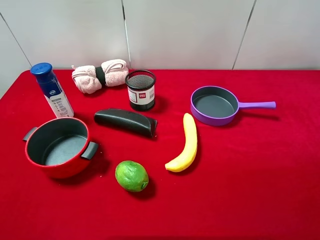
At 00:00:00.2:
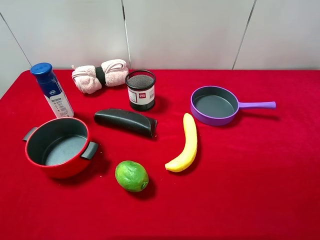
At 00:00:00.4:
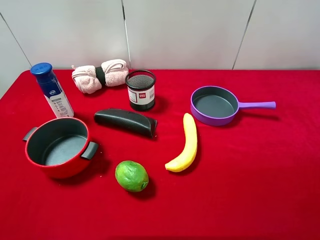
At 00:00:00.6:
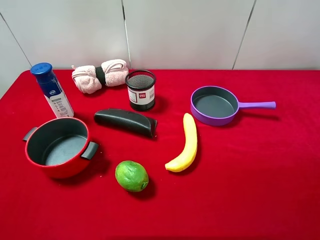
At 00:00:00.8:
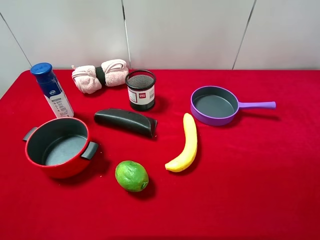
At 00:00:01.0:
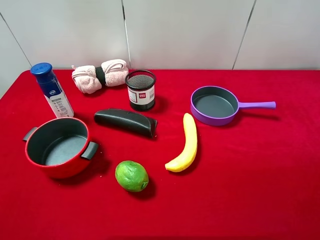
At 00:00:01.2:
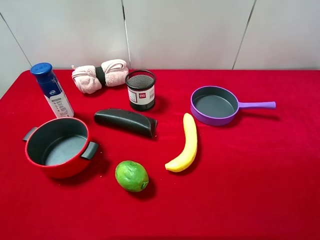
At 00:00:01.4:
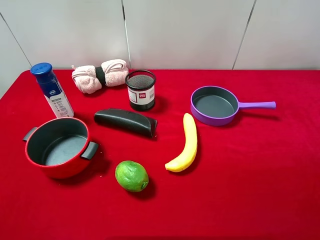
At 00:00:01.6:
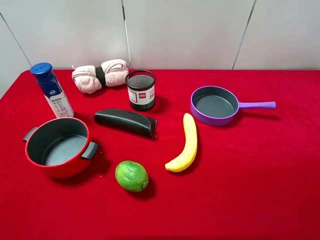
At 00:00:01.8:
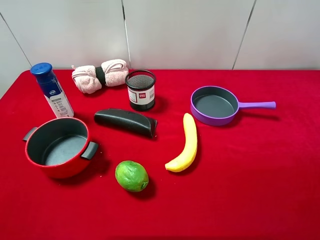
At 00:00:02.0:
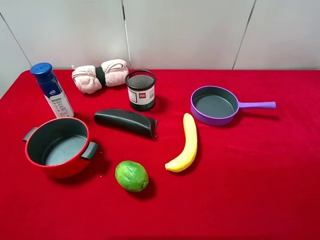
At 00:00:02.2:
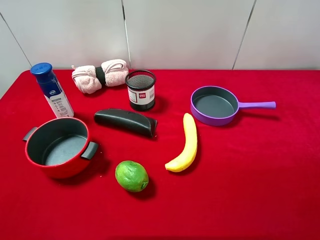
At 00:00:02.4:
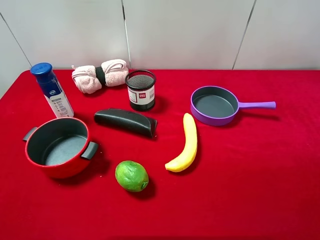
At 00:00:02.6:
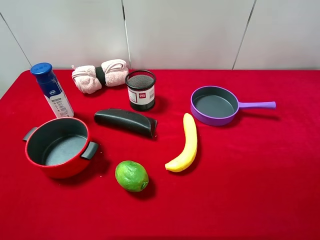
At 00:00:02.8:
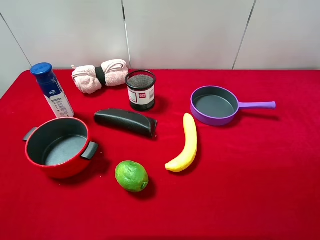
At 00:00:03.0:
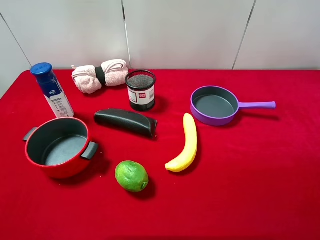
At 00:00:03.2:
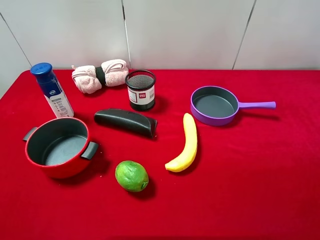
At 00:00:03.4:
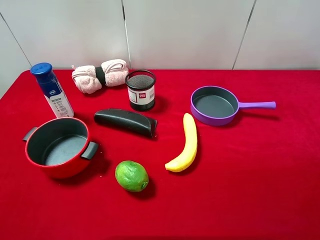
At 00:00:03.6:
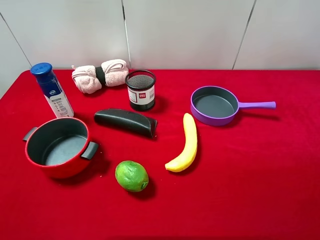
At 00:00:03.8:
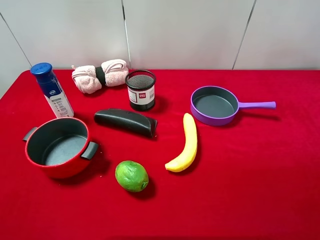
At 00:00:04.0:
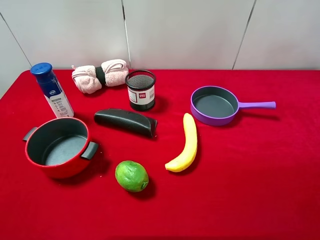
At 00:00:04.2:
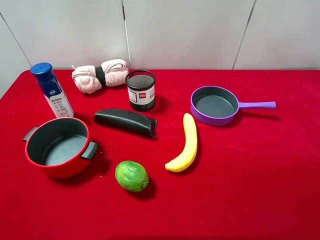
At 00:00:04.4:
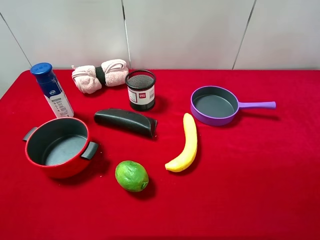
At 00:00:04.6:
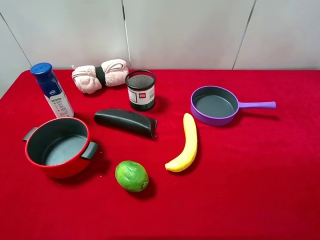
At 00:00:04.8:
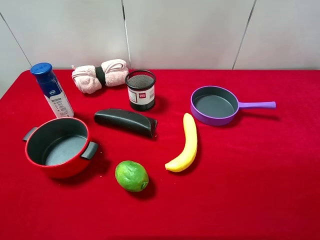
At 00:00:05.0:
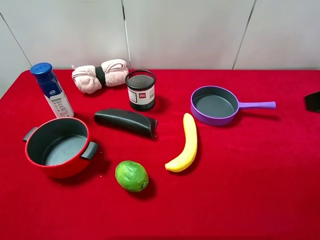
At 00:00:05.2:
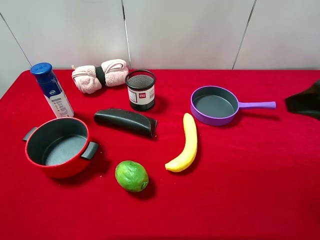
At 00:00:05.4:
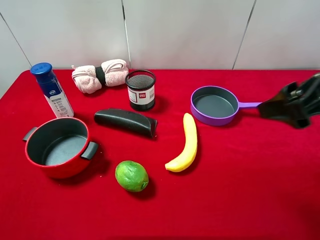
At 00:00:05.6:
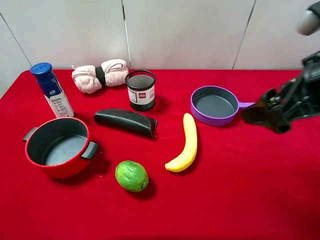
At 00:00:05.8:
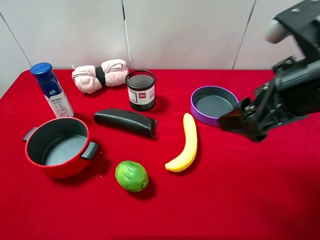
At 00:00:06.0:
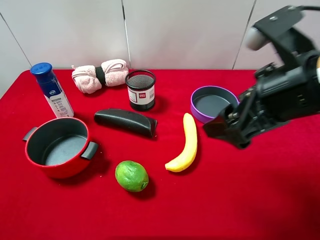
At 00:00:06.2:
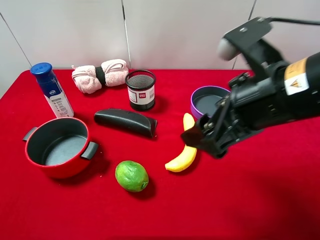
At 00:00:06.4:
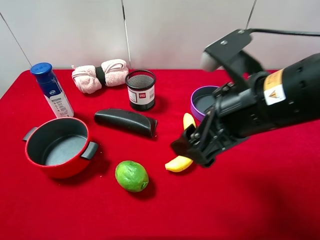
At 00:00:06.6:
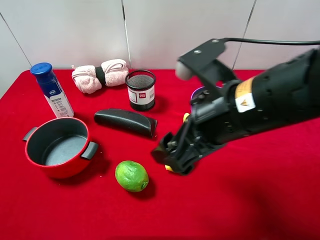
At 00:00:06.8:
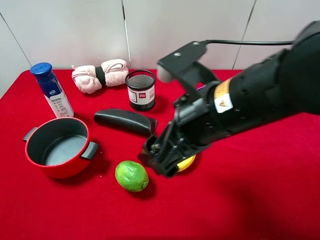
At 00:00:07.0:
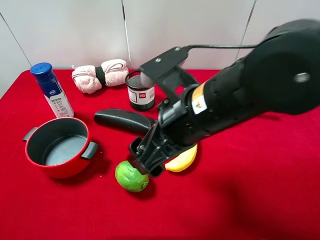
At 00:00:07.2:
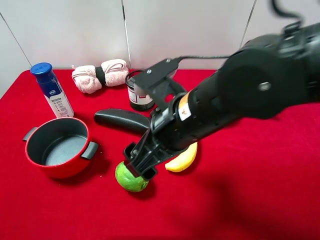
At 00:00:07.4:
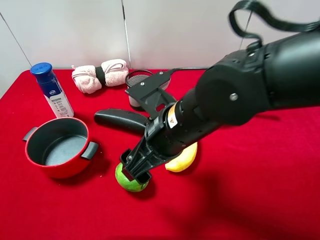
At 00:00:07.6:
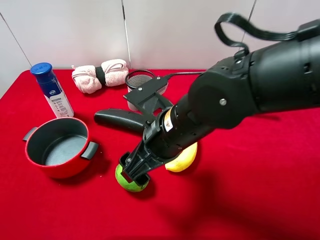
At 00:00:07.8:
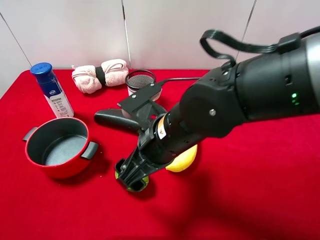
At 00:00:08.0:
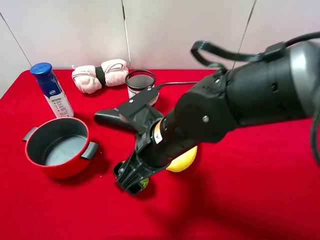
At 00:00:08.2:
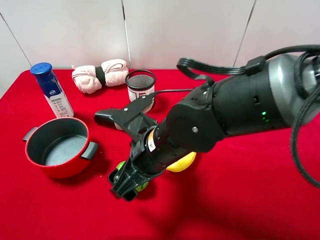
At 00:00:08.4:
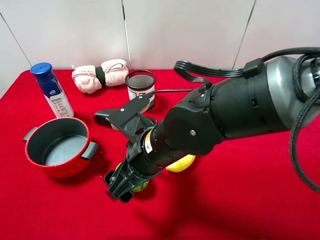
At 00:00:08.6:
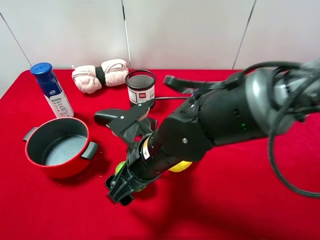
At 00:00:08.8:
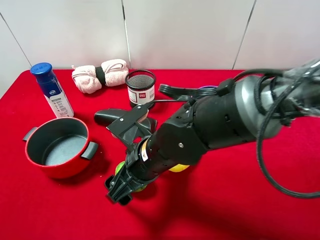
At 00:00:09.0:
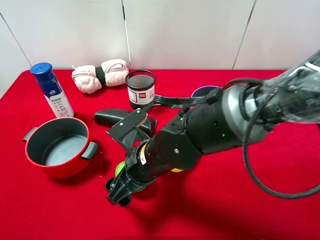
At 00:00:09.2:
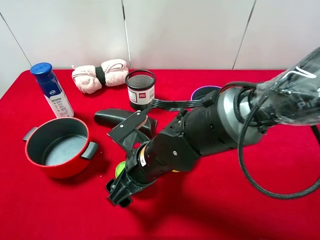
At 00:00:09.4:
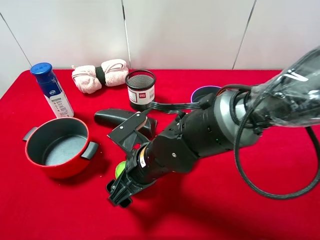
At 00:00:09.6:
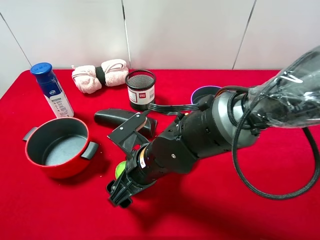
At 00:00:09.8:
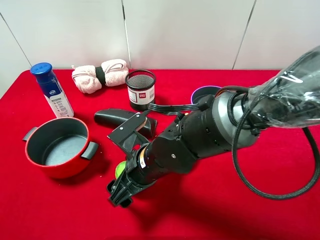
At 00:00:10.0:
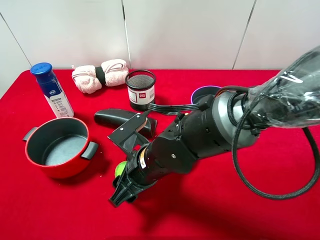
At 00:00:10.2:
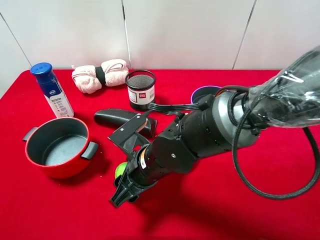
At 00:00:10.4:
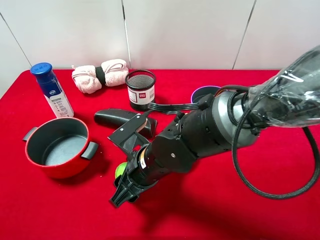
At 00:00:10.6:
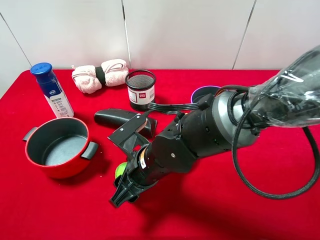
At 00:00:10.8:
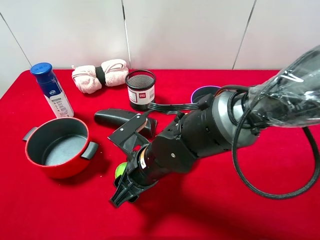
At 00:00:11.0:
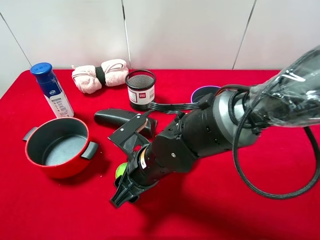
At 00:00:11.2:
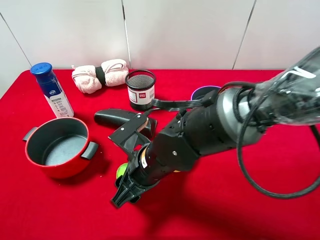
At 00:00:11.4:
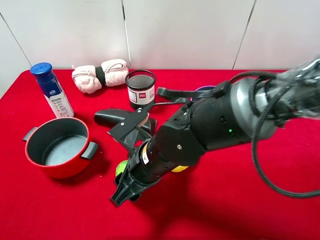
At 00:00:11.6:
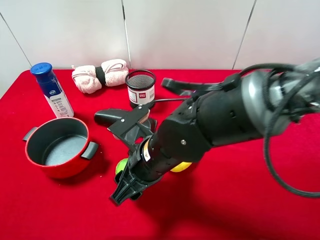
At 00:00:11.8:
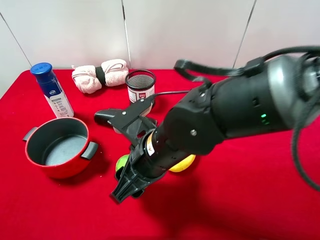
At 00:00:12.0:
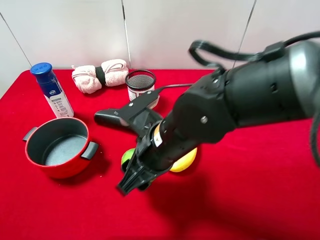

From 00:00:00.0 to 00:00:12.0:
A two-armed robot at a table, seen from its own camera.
Task of the whole recording: pick up an item with a gripper and place it in a random container on the desktop.
From 00:00:00.0 to 00:00:03.0: The two grippers keep their place.
From 00:00:04.4 to 00:00:06.0: The right gripper goes some 15 cm to the left, forward and downward.
From 00:00:06.0 to 00:00:07.6: The right gripper shifts approximately 15 cm to the left and downward.
From 00:00:07.6 to 00:00:09.0: The right gripper travels downward by about 5 cm.
From 00:00:09.0 to 00:00:10.4: The right gripper closes.
From 00:00:10.4 to 00:00:12.0: The right gripper shifts about 5 cm upward.

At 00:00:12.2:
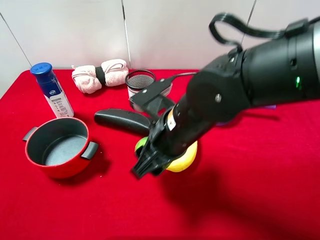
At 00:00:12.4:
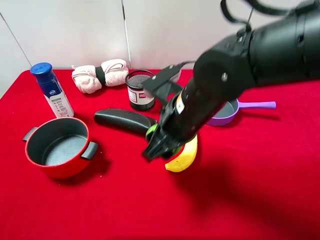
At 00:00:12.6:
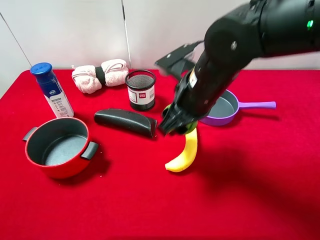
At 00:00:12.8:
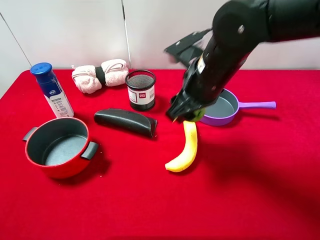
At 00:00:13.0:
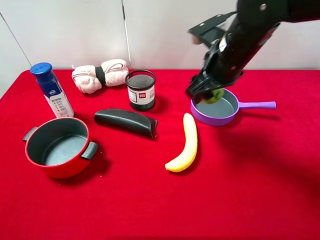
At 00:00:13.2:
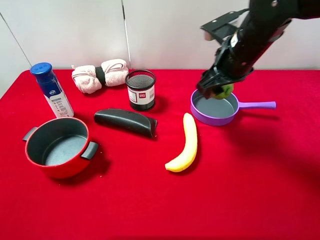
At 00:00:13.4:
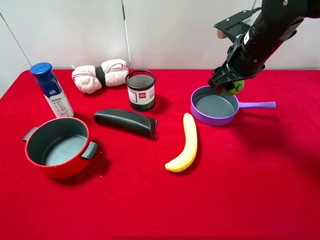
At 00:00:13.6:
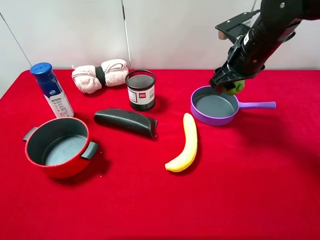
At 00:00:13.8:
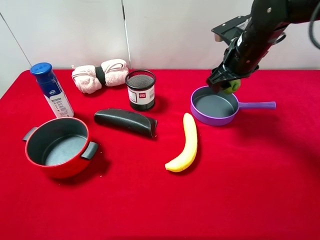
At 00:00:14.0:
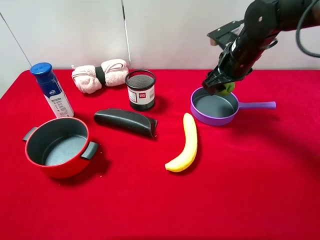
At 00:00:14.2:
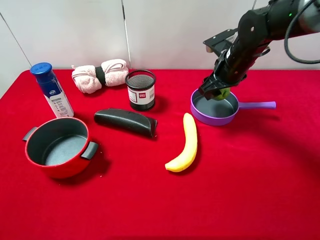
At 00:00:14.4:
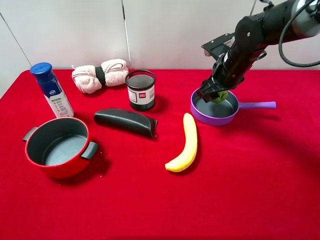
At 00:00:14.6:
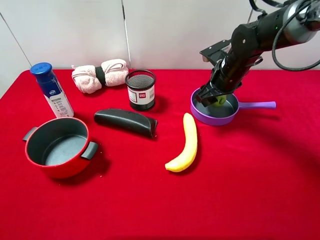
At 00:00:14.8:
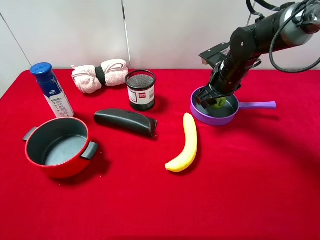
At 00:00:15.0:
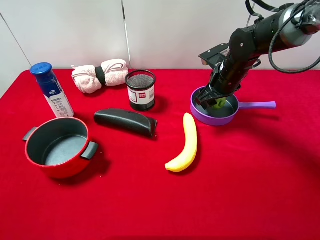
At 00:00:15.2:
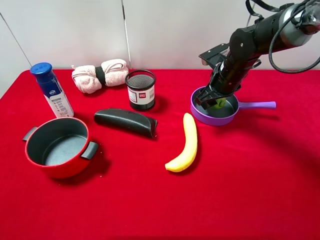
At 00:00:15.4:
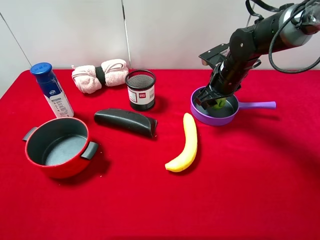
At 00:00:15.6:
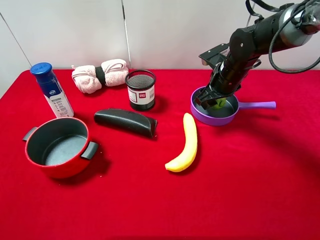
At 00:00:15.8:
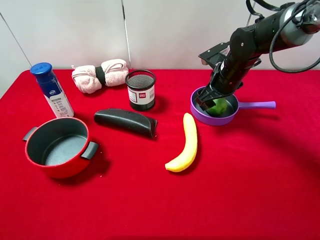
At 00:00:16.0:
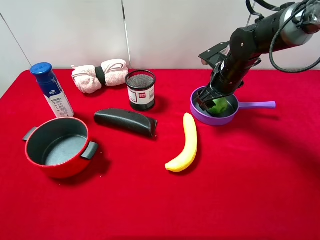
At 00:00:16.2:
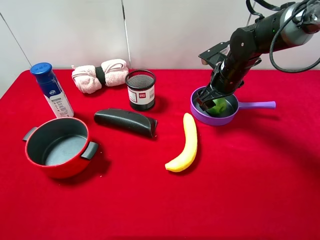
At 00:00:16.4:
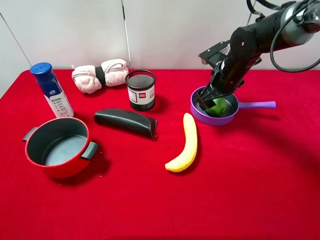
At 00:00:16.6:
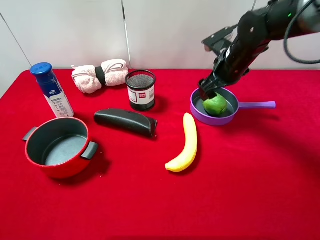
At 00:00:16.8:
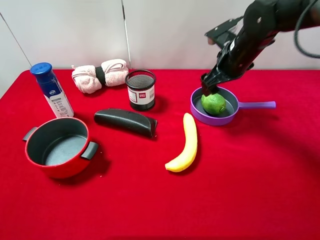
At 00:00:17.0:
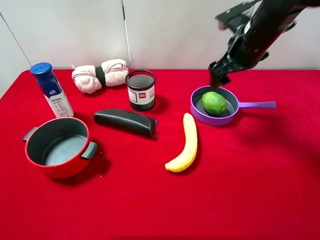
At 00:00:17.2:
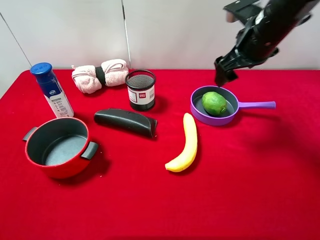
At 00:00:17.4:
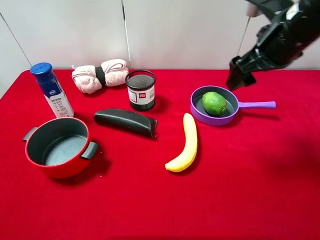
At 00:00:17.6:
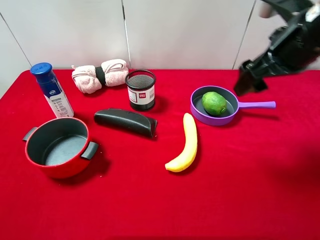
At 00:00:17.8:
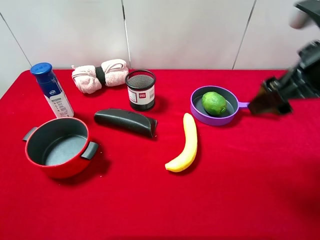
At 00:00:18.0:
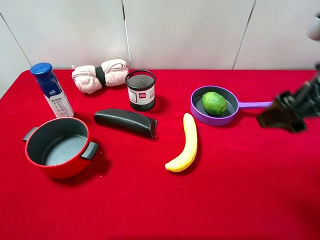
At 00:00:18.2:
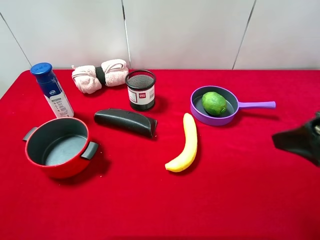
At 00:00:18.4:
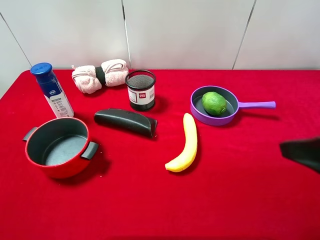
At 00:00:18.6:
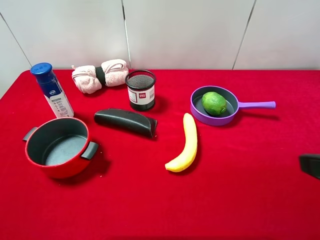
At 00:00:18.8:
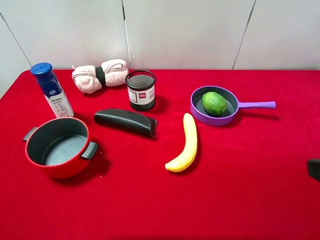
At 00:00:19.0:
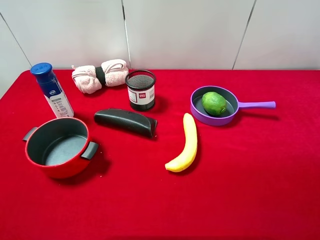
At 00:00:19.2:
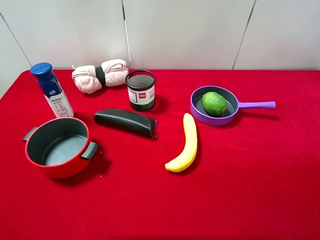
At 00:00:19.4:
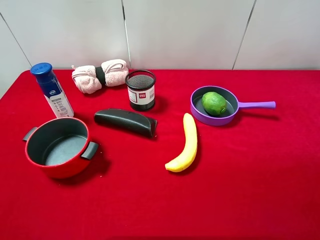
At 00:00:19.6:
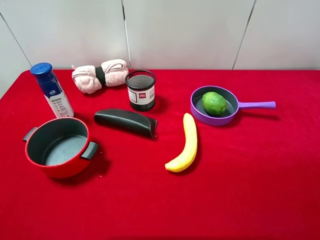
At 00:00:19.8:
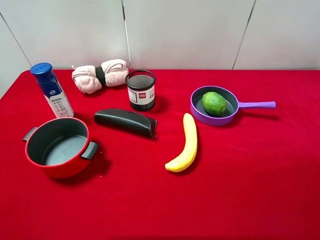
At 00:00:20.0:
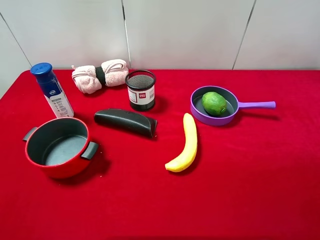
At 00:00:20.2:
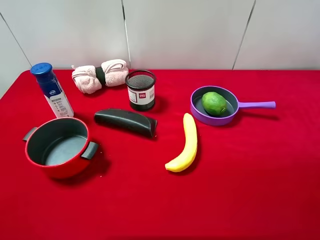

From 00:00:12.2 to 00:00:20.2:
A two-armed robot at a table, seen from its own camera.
Task of the whole recording: pick up an item with a gripper and place it in a random container on the desktop.
From 00:00:12.2 to 00:00:13.8: The right gripper shifts approximately 20 cm forward and to the right.
From 00:00:13.8 to 00:00:15.4: The right gripper travels downward by approximately 5 cm.
From 00:00:15.4 to 00:00:17.0: The right gripper moves upward, approximately 10 cm, and opens its fingers.
From 00:00:17.0 to 00:00:18.6: The right gripper goes approximately 30 cm backward.
